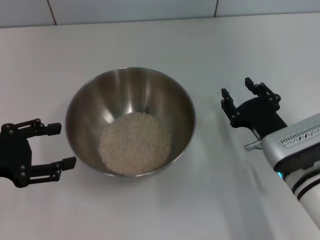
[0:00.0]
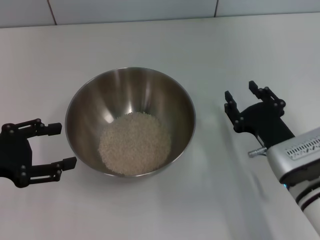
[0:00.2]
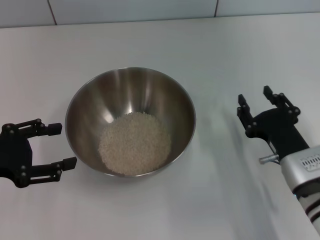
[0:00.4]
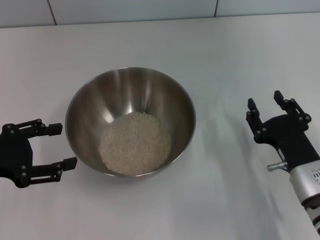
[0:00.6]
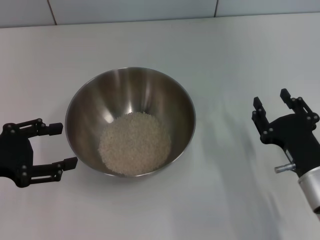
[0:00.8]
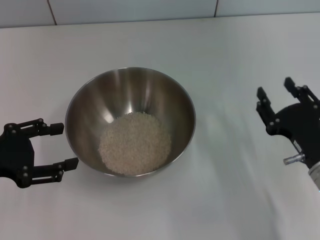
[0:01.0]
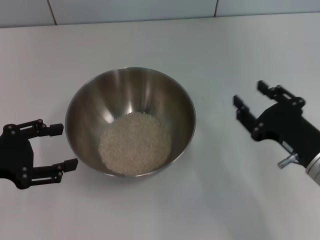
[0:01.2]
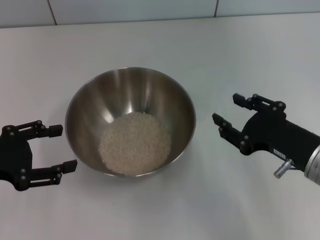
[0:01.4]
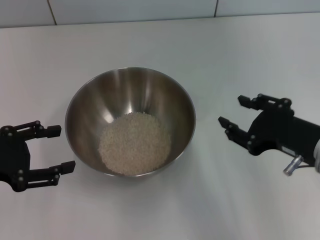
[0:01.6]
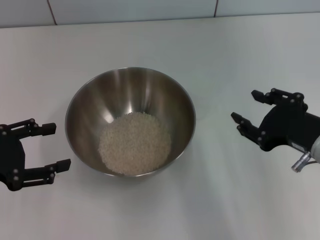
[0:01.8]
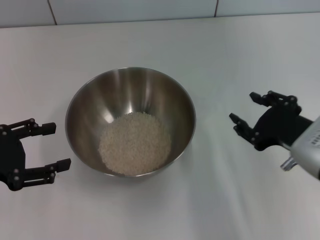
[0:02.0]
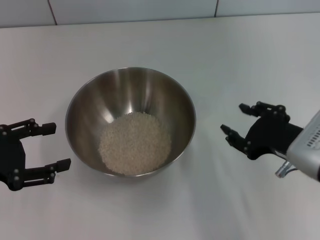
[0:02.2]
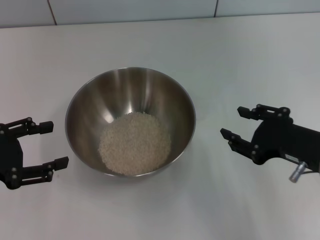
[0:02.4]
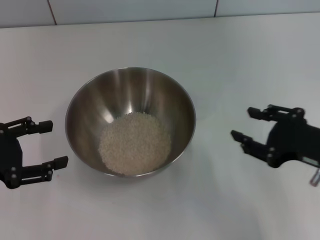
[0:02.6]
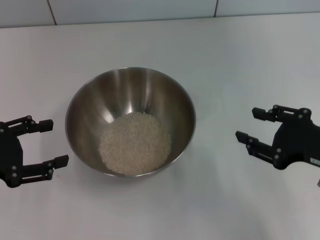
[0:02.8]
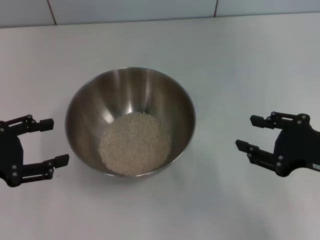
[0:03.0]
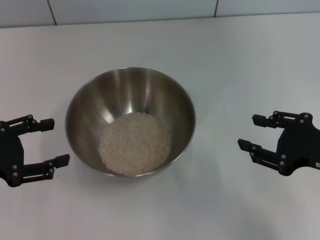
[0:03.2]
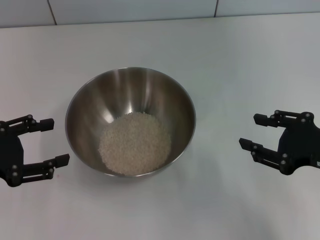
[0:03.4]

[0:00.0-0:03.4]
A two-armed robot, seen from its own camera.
Task of the whole recording: Place the bowl in the middle of the table with one hand and pour the rice from the grain cup into it with the other hand.
0:00.0 to 0:01.6: The right gripper shifts roughly 10 cm upward.
0:01.6 to 0:03.4: The right gripper heads to the right, covering about 5 cm.

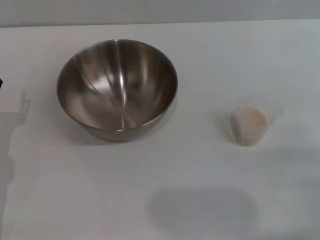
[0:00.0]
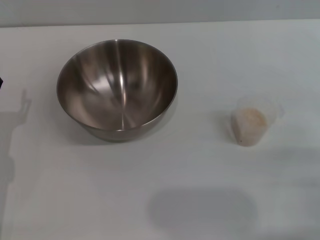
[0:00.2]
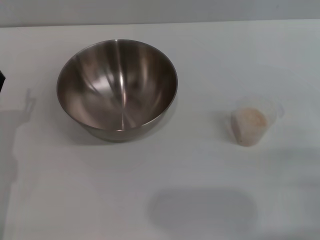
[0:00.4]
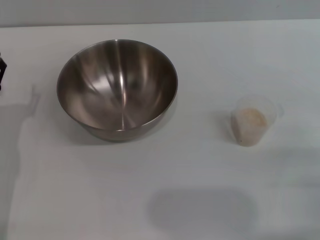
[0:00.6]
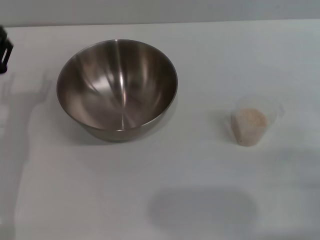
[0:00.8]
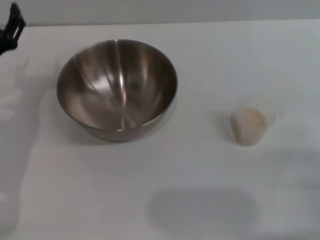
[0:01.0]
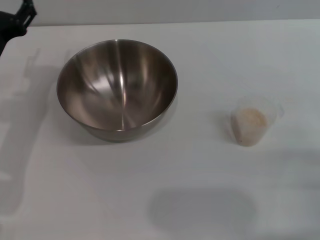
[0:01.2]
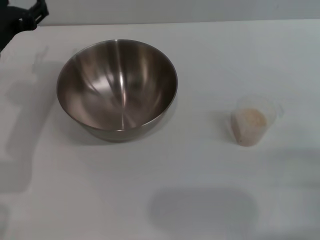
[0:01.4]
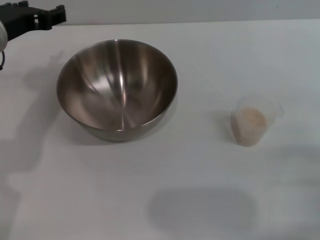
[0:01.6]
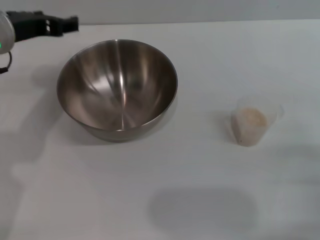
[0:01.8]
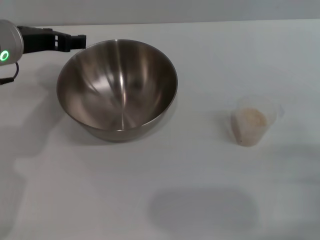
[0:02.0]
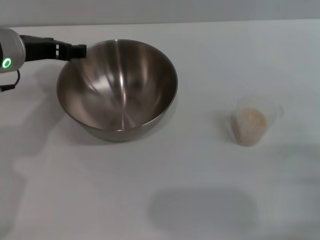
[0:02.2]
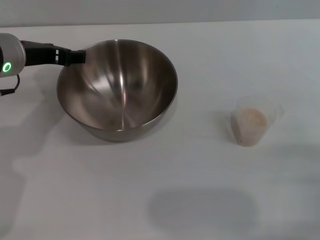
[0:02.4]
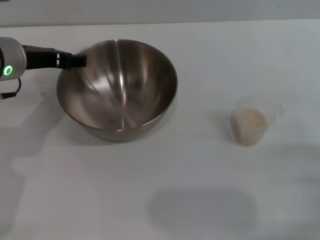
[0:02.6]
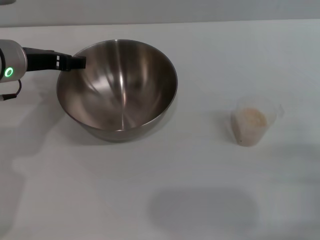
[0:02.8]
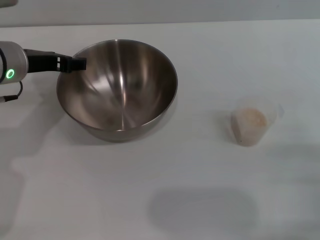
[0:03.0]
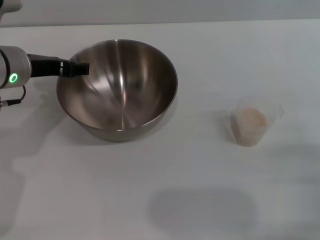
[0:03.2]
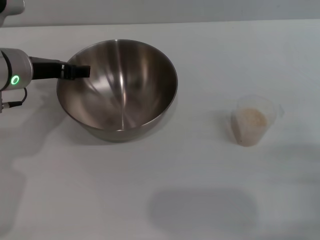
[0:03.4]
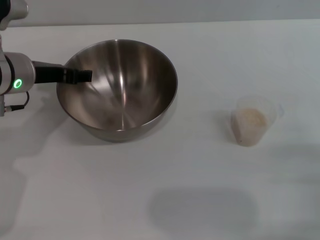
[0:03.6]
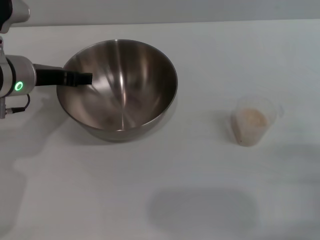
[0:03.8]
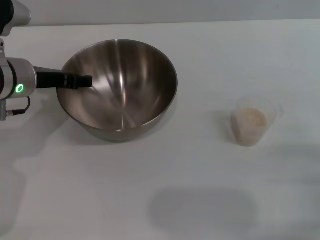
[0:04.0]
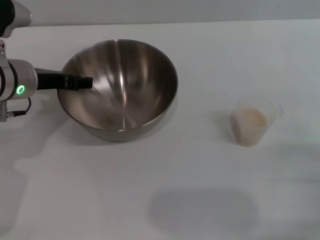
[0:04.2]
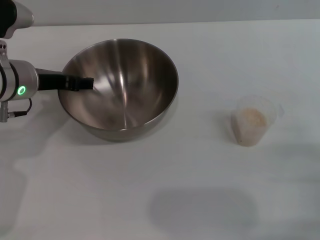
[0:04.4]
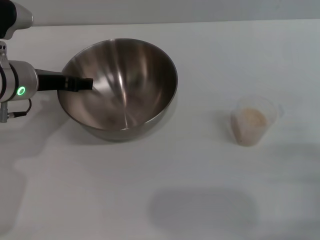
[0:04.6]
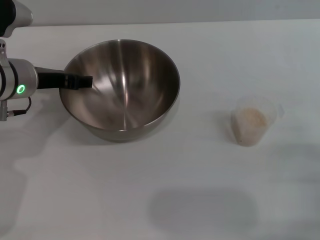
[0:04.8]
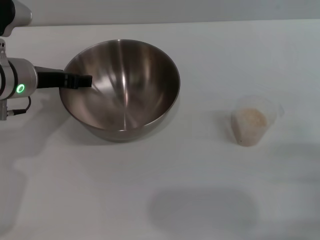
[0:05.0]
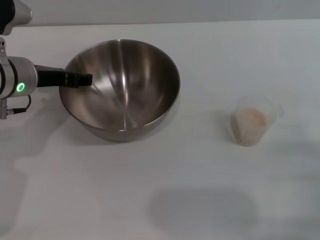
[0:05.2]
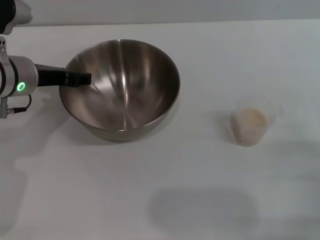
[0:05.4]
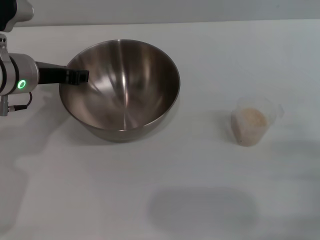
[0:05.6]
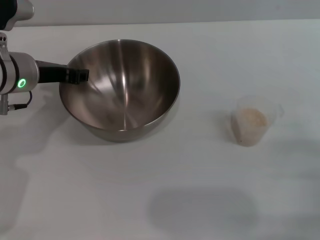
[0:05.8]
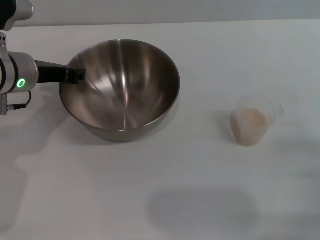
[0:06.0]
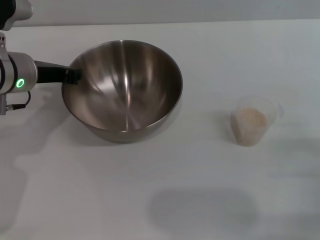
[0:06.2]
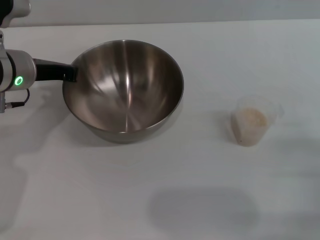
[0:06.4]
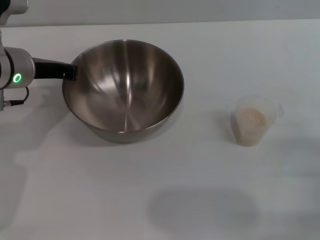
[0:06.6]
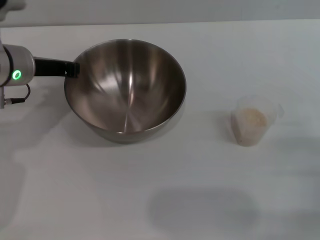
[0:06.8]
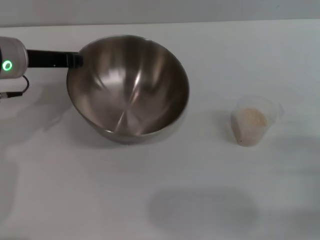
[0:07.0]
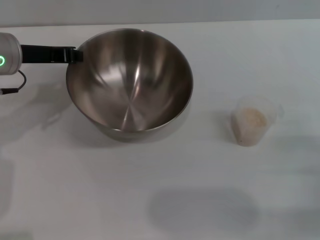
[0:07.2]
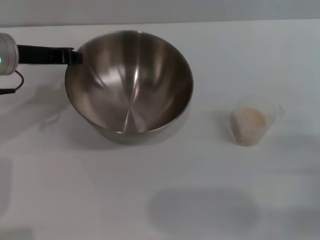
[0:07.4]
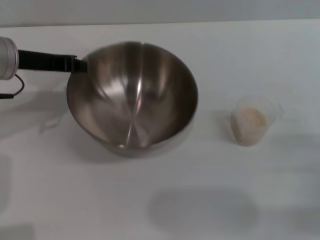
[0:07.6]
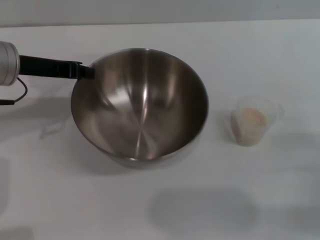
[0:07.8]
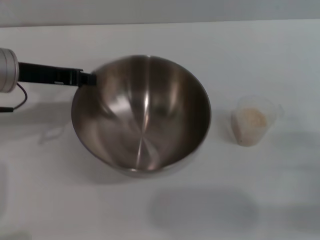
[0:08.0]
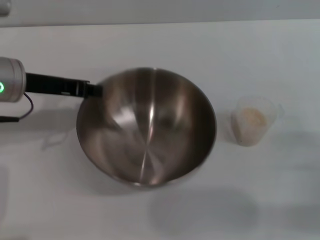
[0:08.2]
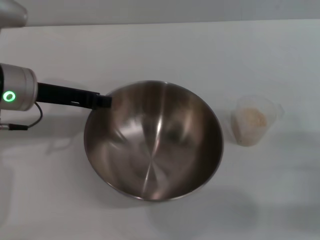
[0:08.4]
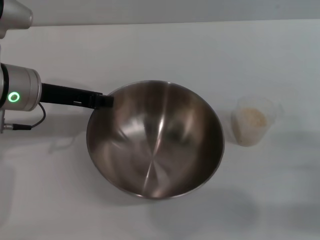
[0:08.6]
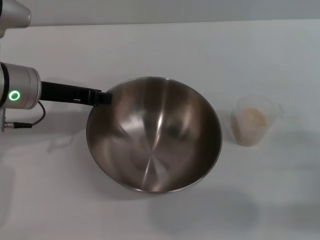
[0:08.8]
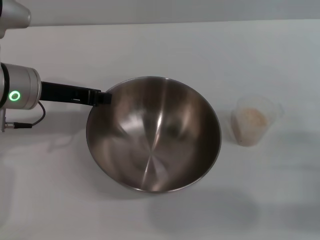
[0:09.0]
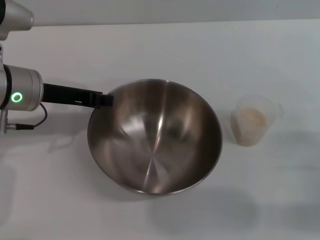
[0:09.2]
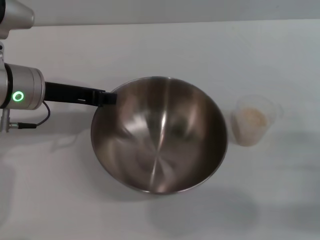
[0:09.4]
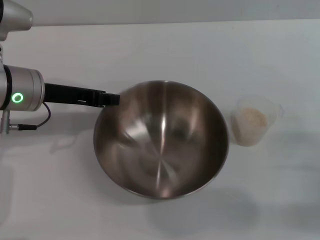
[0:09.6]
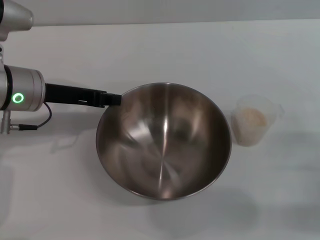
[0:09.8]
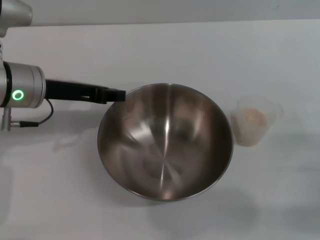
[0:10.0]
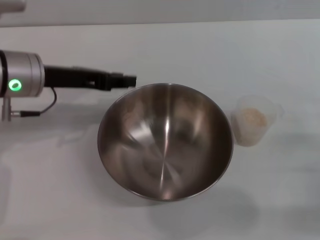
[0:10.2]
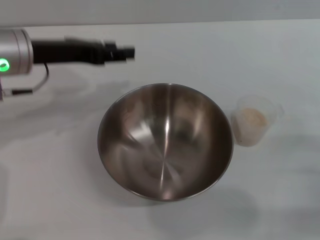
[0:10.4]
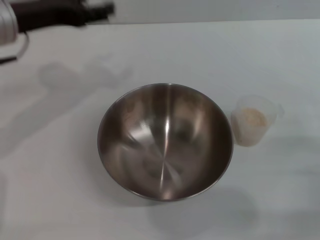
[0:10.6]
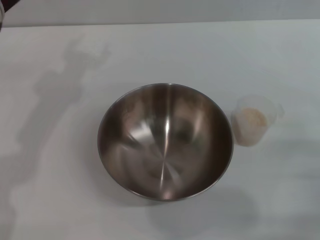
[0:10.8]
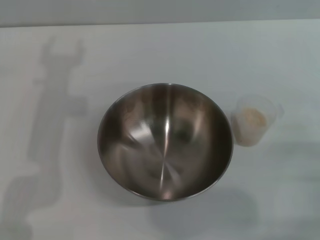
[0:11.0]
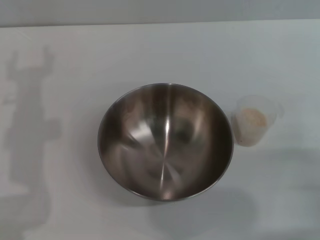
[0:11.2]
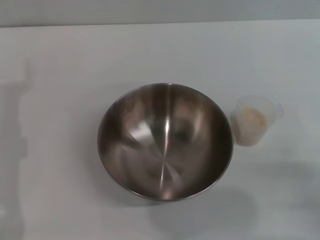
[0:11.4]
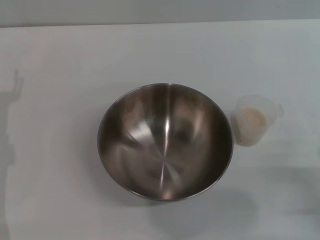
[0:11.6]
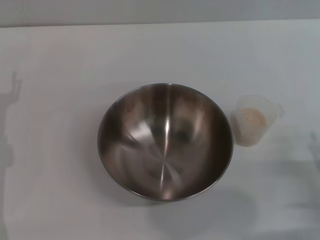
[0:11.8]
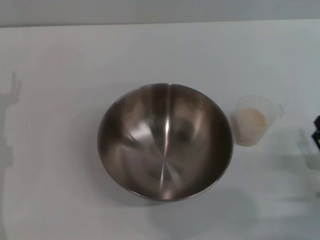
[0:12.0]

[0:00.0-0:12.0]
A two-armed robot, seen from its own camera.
Task of the whole recording: Place the bowl in the middle of the table with one hand and pour the rice from the grain cup into it with the other hand.
Step, 0:00.0 to 0:07.4: Pick up the bowl with the left gripper.
Step, 0:07.6 to 0:11.2: Place the bowl in the center of view with the left gripper.
0:00.0 to 0:01.6: The left gripper heads upward and forward, covering some 20 cm.
0:01.6 to 0:03.0: The grippers move only a little.
0:03.0 to 0:04.4: The grippers make only small movements.
0:04.4 to 0:06.0: The left gripper closes up.
0:06.0 to 0:07.6: The left gripper closes up.
0:09.0 to 0:10.4: The left gripper opens up.
0:10.4 to 0:12.0: The left gripper heads downward, to the left and backward, covering roughly 15 cm, and opens its fingers. The right gripper changes place by about 5 cm.

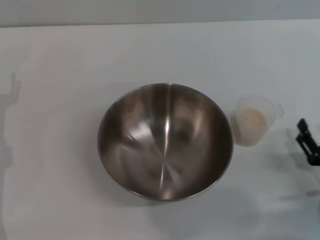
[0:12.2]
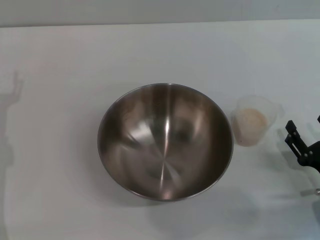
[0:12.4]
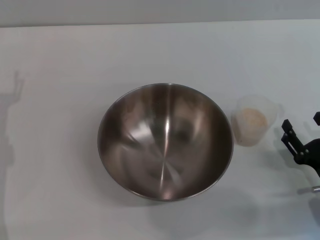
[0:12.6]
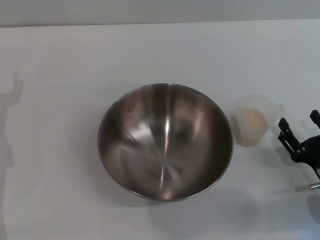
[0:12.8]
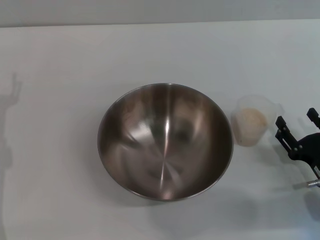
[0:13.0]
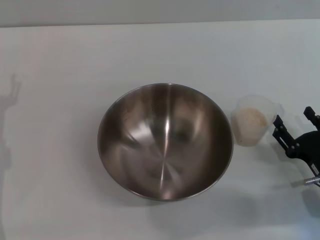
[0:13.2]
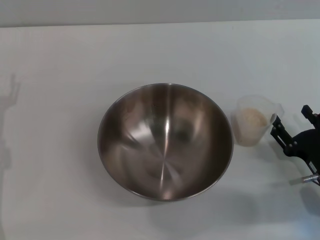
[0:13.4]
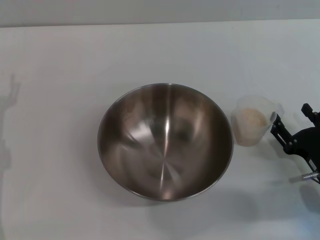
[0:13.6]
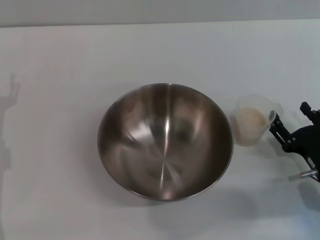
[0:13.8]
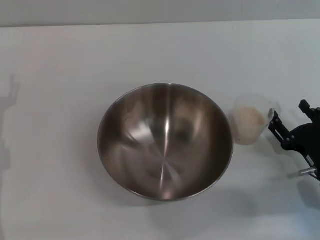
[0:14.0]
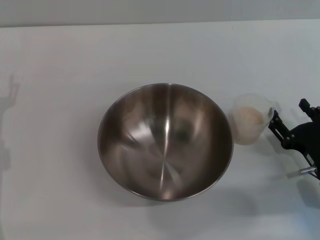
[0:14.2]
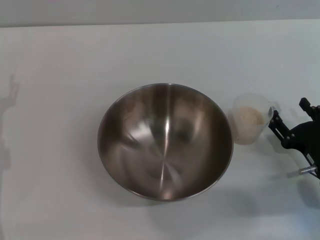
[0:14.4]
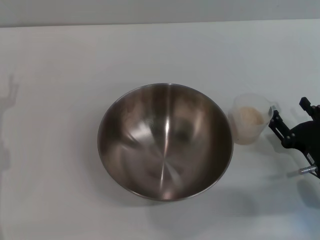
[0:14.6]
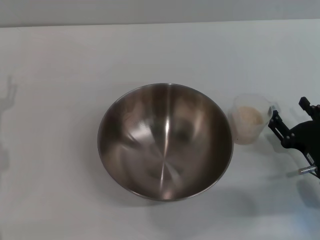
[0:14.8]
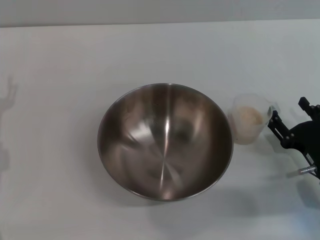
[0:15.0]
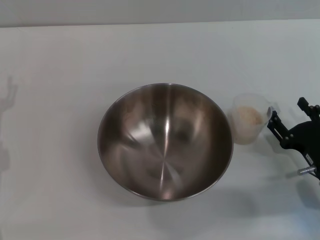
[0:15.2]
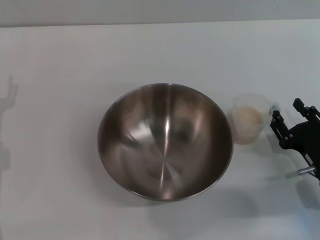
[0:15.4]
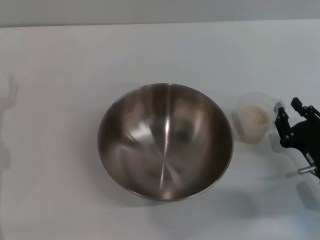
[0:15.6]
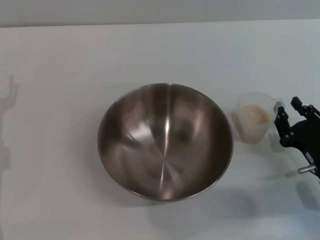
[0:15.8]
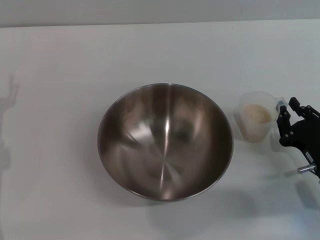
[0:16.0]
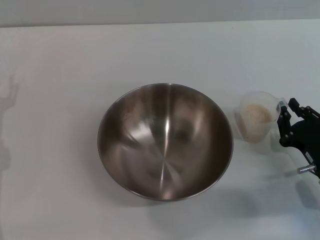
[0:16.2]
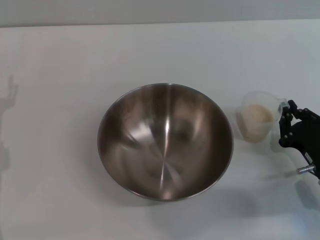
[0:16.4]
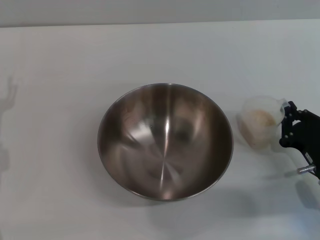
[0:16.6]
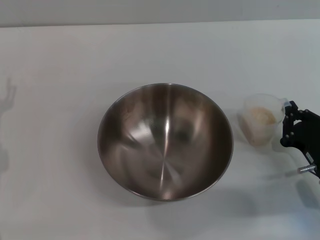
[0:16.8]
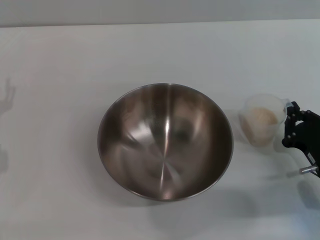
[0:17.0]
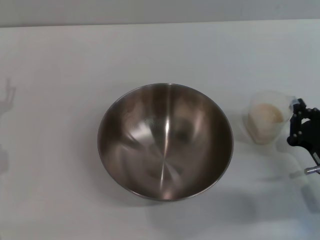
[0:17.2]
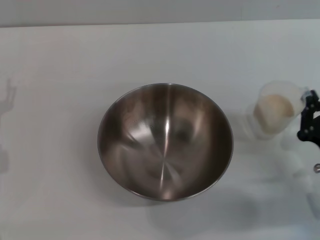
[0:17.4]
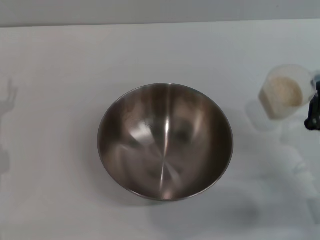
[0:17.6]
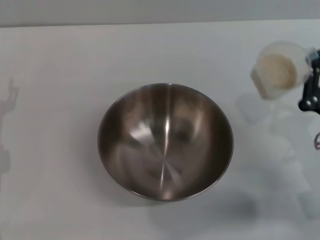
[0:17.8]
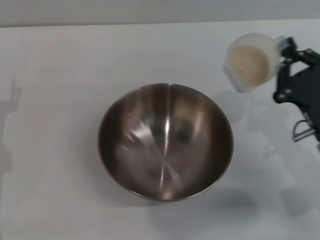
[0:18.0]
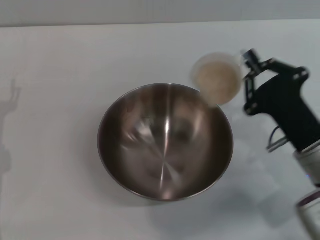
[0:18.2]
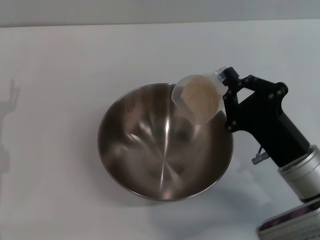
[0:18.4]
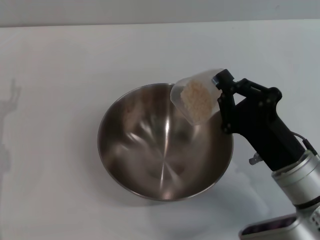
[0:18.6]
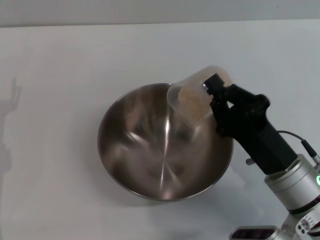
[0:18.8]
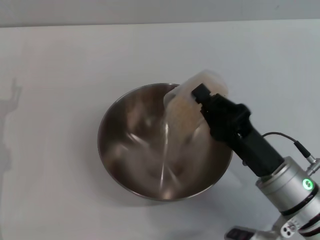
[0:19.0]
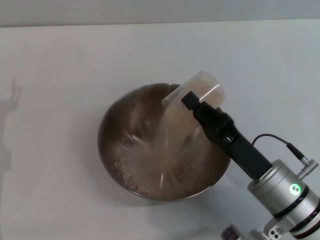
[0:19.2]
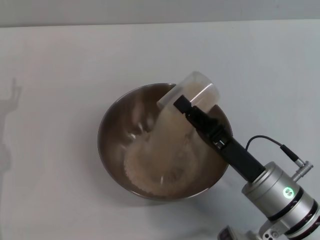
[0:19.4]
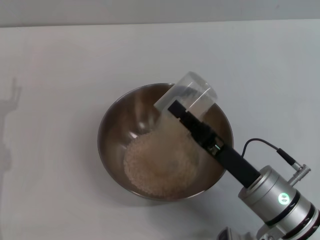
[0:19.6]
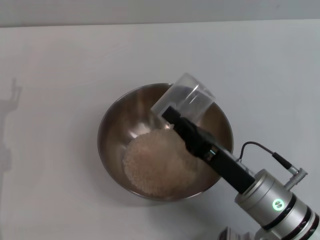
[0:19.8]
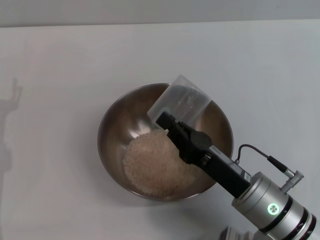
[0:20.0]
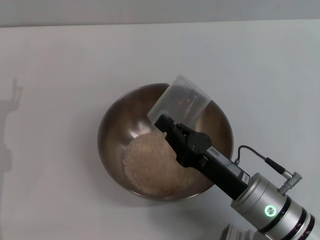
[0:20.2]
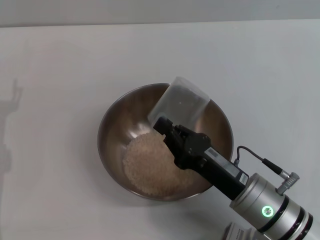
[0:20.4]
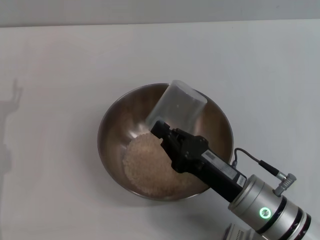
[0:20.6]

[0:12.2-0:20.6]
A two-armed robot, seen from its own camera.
Task of the whole recording: Place the bowl in the middle of the table with one hand and pour the rice from the grain cup into it with the other hand.
Step, 0:12.2 to 0:17.8: Pick up the cup with rice in it with the right gripper.
Step, 0:18.2 to 0:20.6: Pour the rice from the cup into the bowl with the right gripper.
0:12.2 to 0:13.6: The grippers stay close to where they were, moving slightly.
0:13.6 to 0:15.0: Both grippers stay put.
0:15.0 to 0:16.4: The right gripper closes its fingers.
0:16.4 to 0:17.8: The right gripper travels upward by approximately 5 cm.
0:17.8 to 0:19.2: The right gripper goes some 10 cm to the left.
